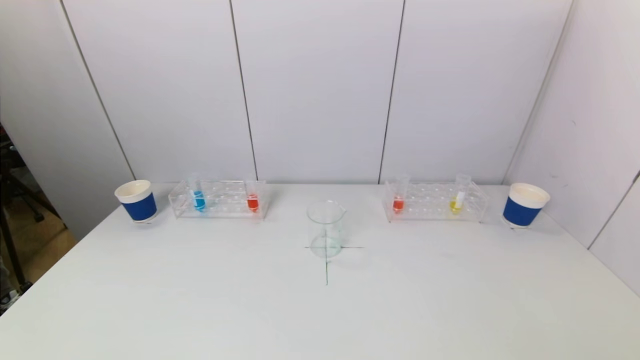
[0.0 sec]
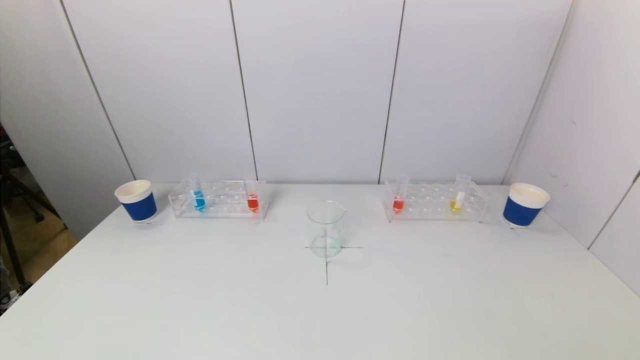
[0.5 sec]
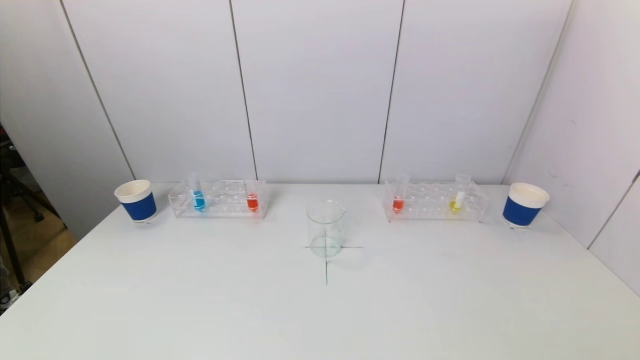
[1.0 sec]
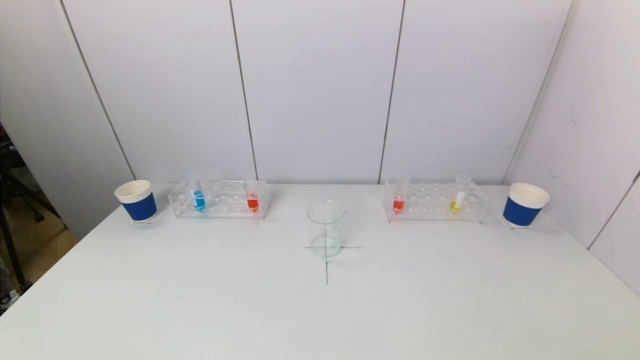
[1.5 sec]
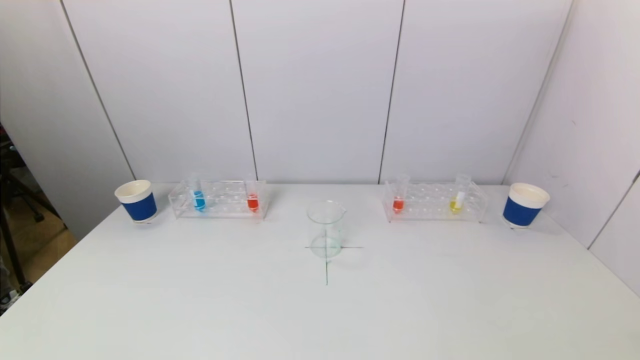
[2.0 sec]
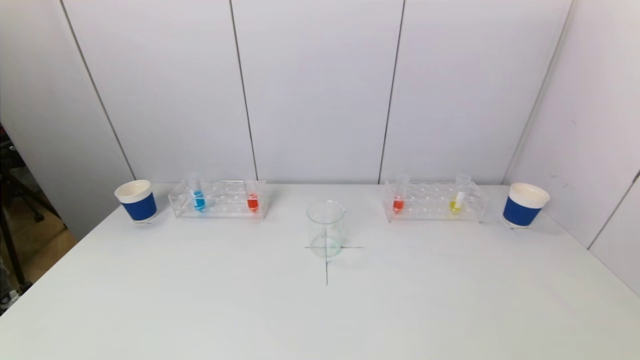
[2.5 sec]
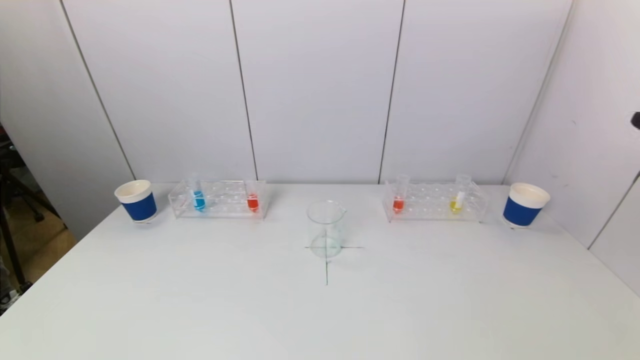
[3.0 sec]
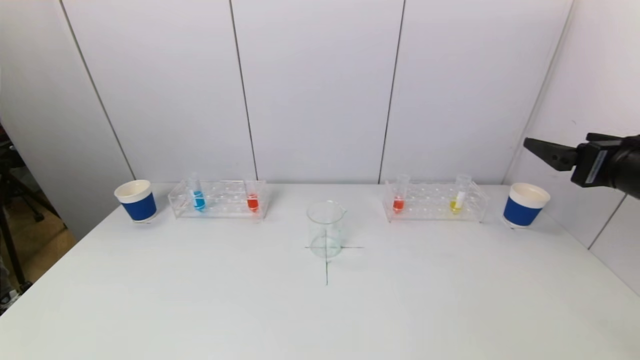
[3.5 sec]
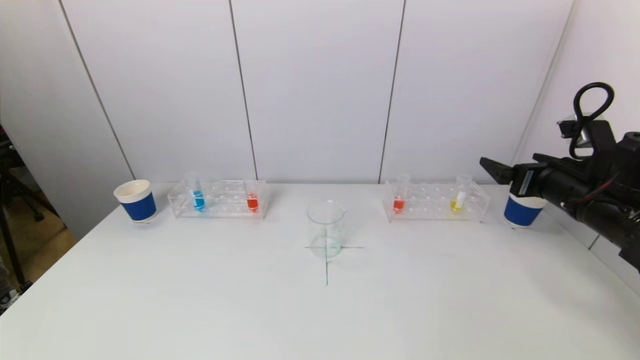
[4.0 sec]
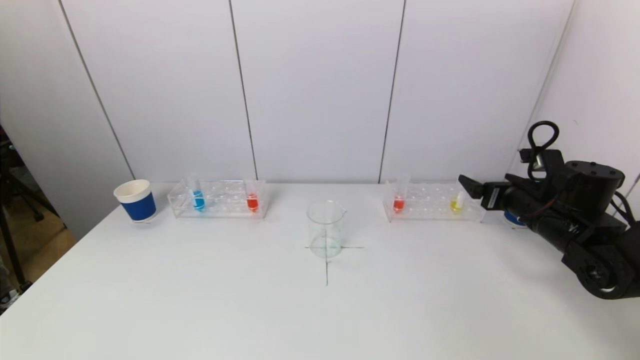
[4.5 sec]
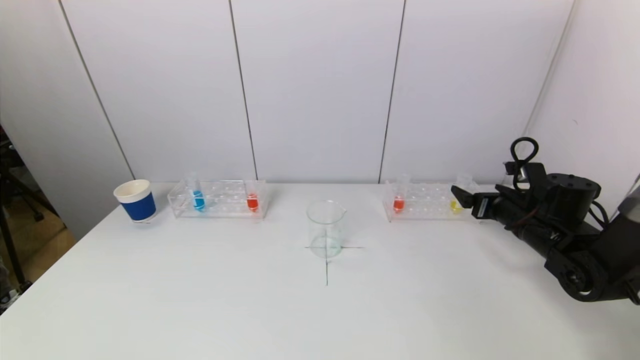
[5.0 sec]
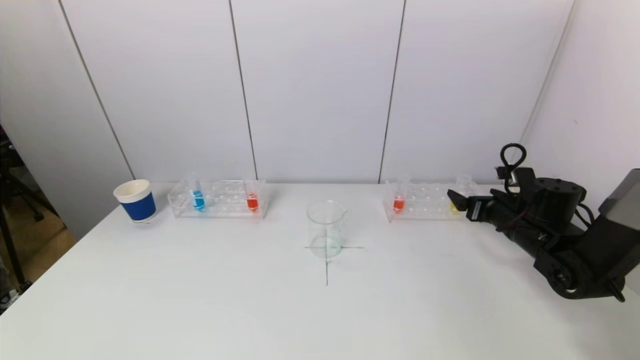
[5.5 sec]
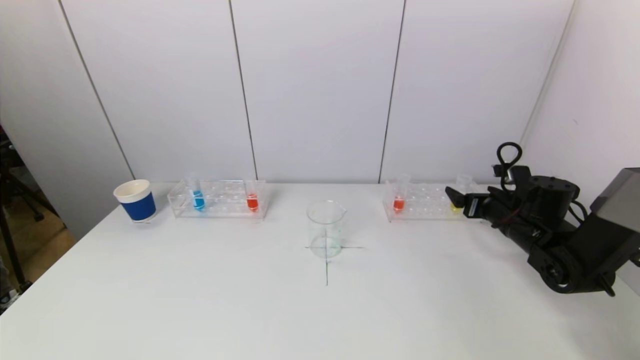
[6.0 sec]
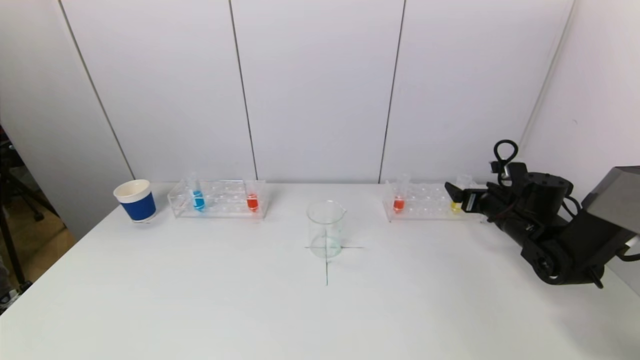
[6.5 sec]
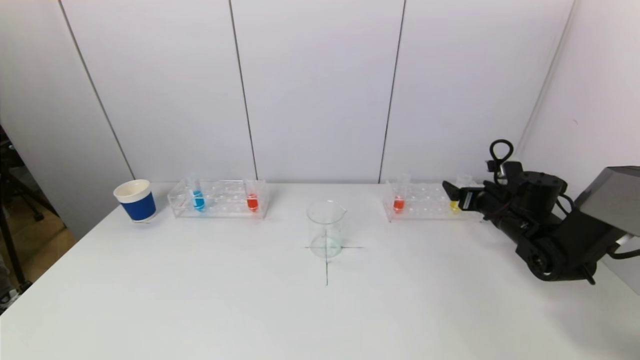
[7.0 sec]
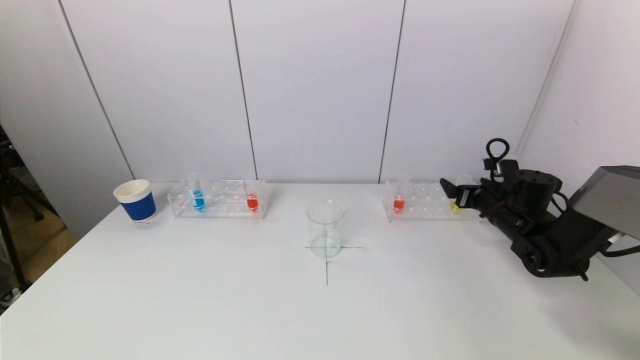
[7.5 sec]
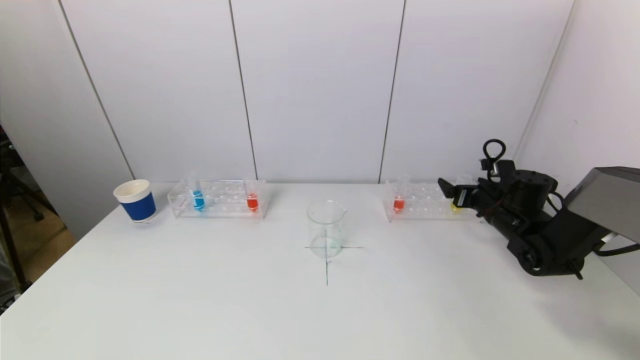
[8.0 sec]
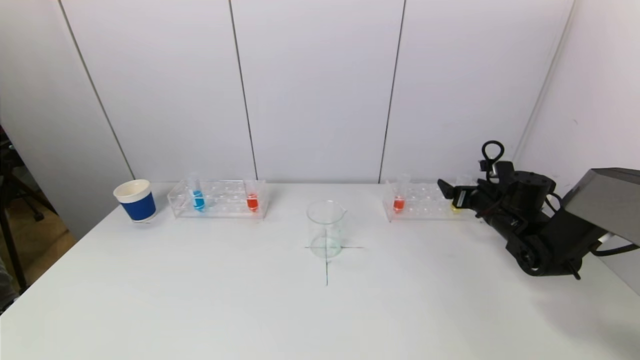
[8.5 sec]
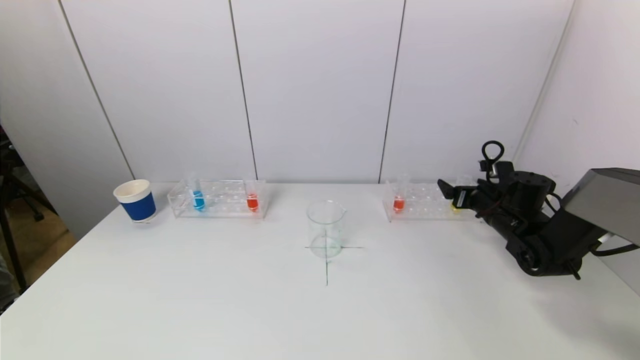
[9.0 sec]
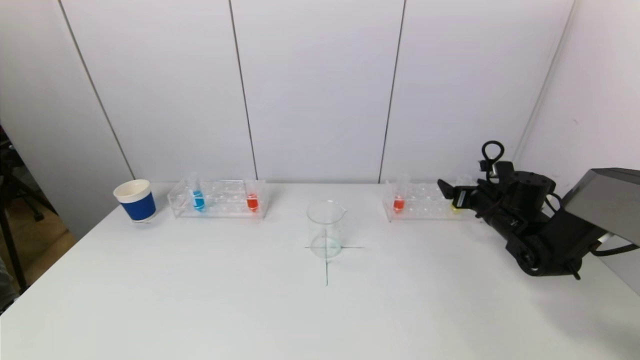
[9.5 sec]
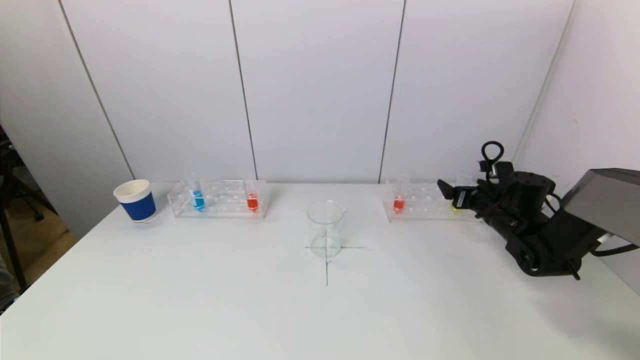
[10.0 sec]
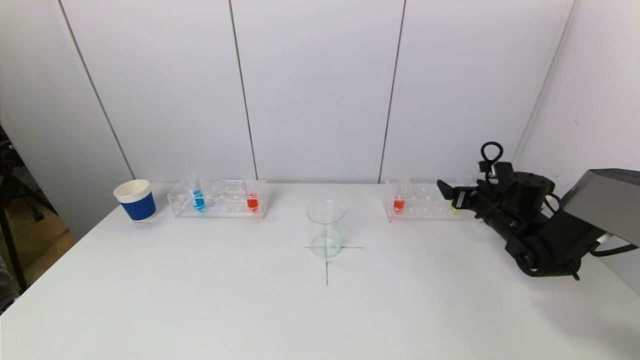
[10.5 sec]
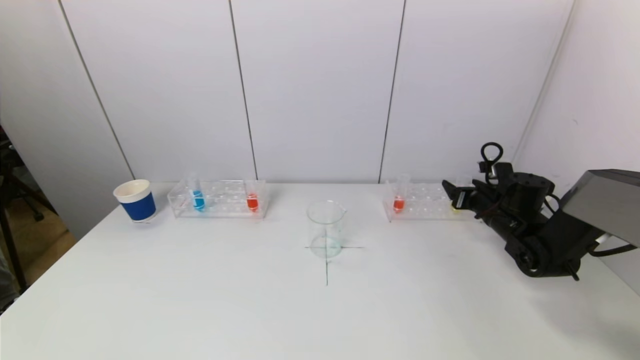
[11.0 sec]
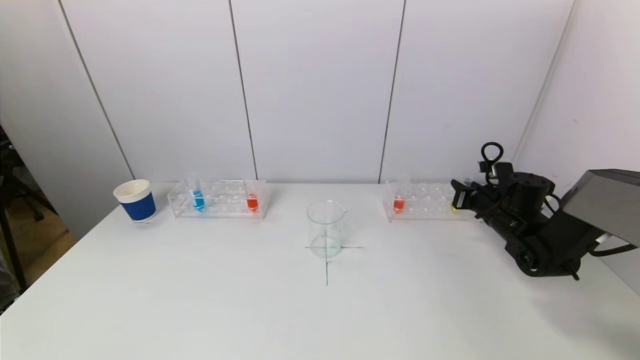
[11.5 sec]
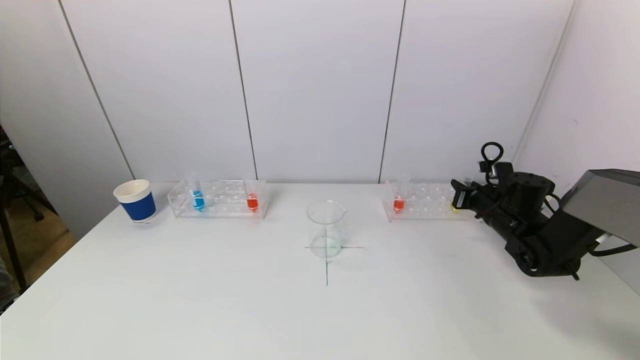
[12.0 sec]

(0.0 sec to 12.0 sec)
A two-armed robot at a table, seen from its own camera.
Task of the whole recording: pick up a test tube with pigment on left test tube rack and a test tube with pigment on right test tube rack by grippers and pour them into the beaker.
Step, 0.0 sec - 11.0 sec: Grasp the yellow reagent with the right gripper.
2.0 sec - 4.0 sec: The right gripper travels forward by some 35 cm.
4.0 sec - 6.0 sec: The right gripper is displaced downward and forward by approximately 15 cm.
6.0 sec - 8.0 sec: The grippers move only a little.
8.0 sec - 10.0 sec: Neither gripper changes place.

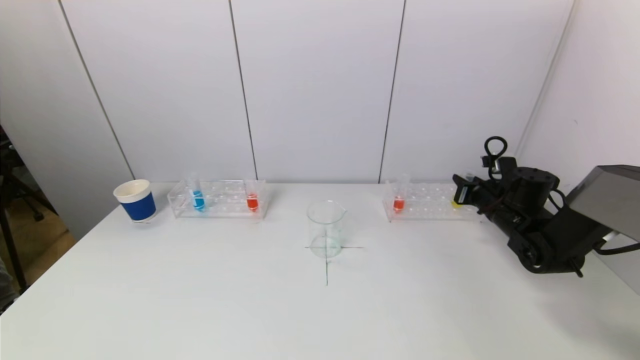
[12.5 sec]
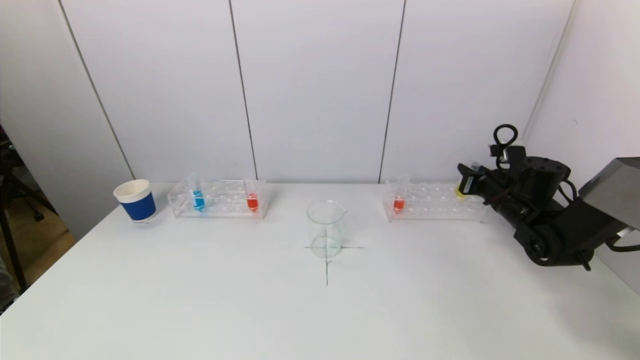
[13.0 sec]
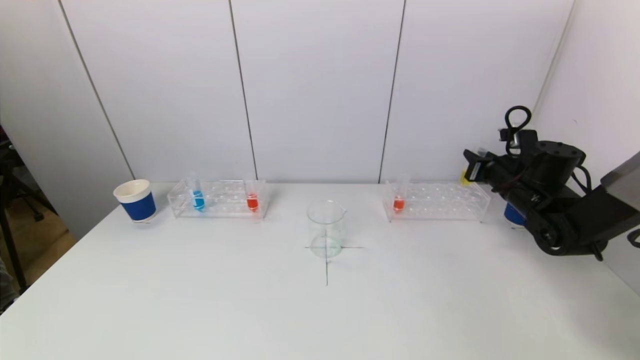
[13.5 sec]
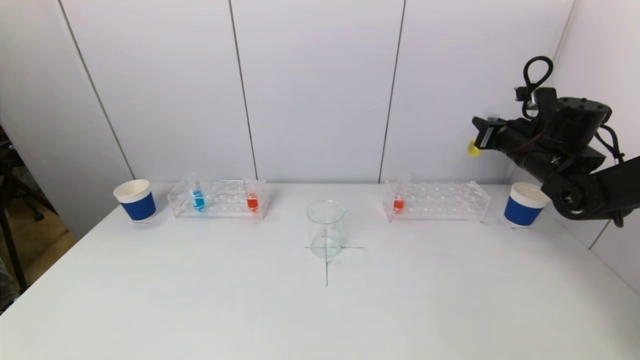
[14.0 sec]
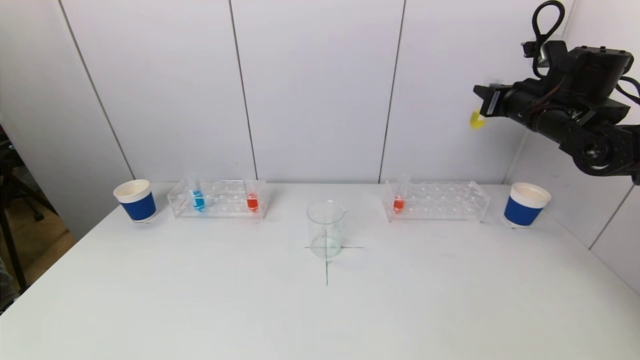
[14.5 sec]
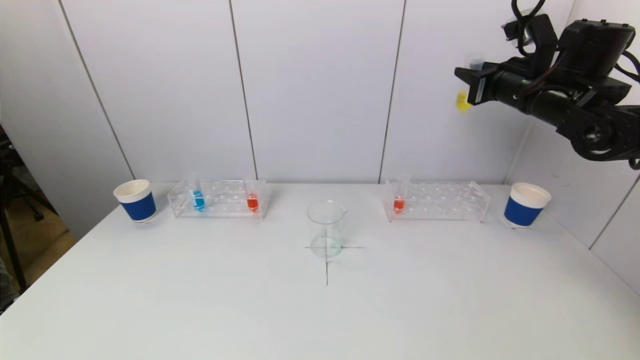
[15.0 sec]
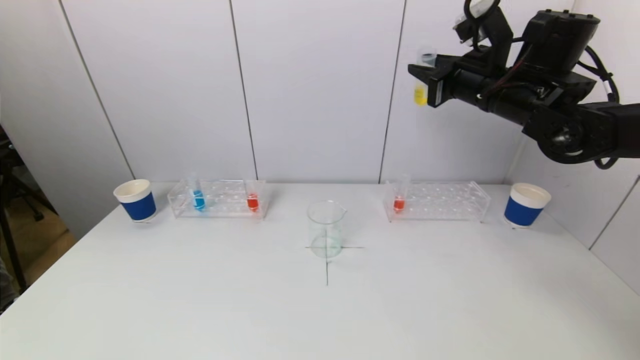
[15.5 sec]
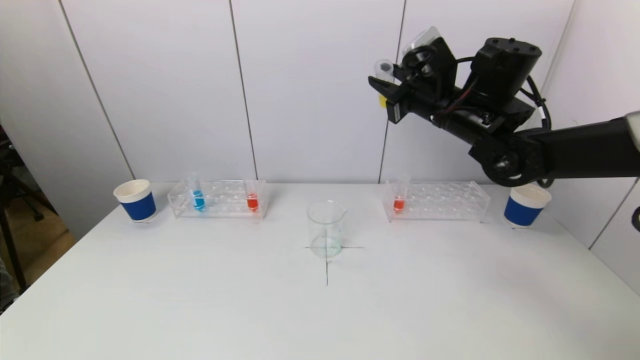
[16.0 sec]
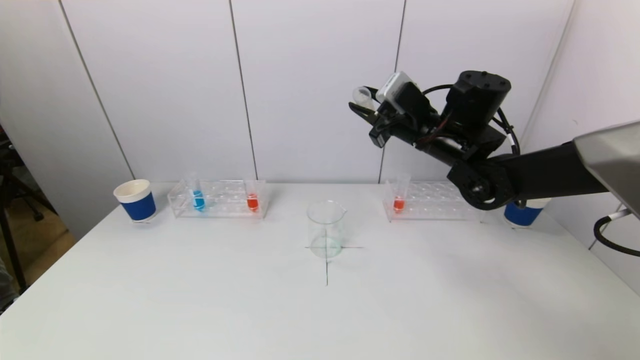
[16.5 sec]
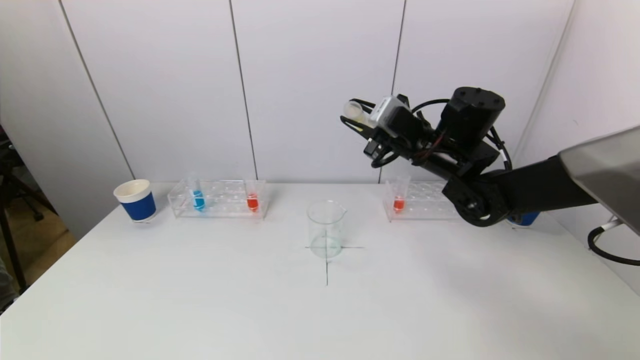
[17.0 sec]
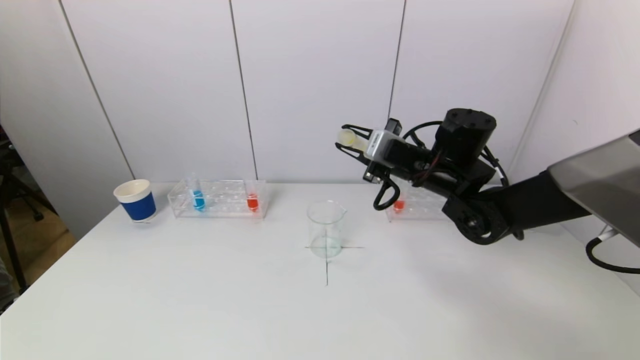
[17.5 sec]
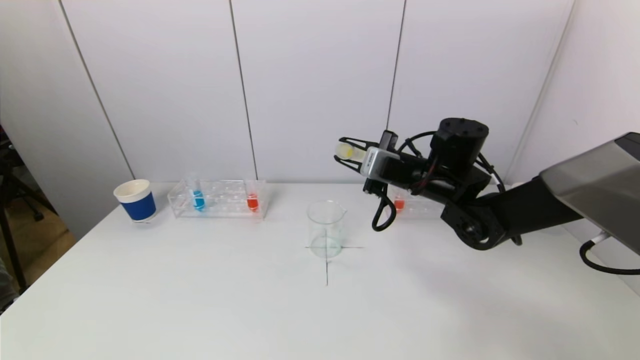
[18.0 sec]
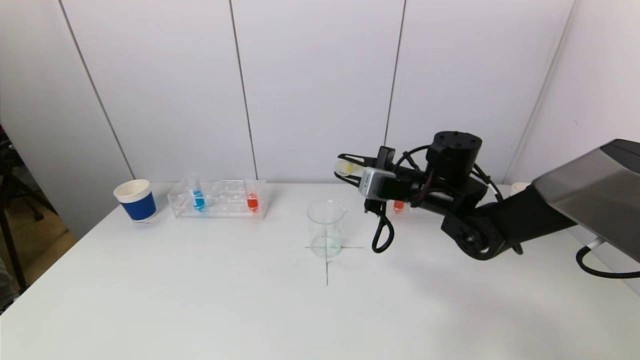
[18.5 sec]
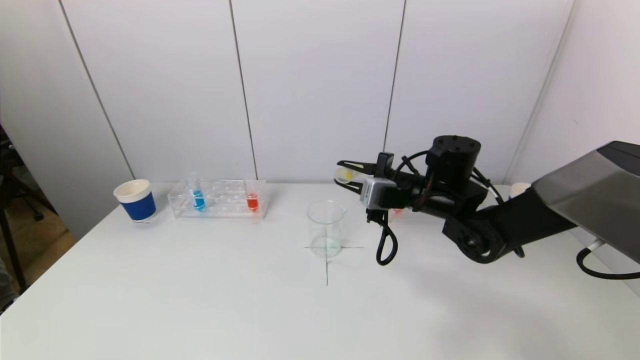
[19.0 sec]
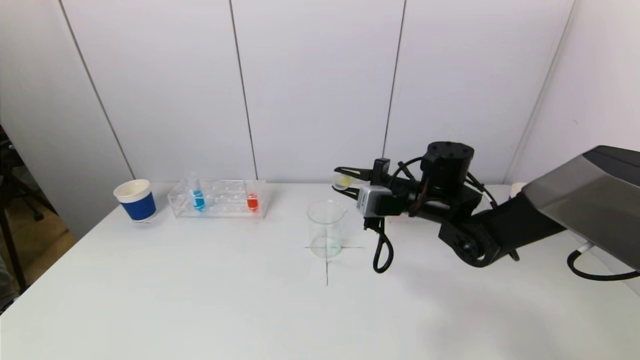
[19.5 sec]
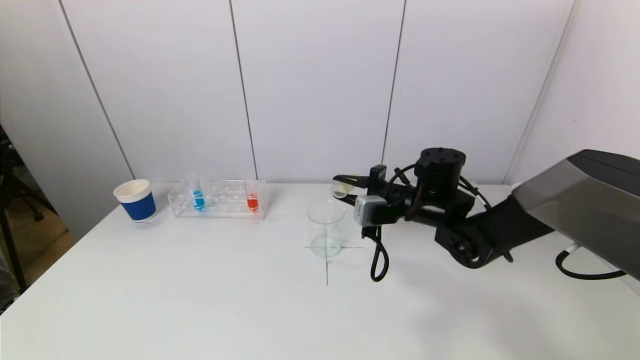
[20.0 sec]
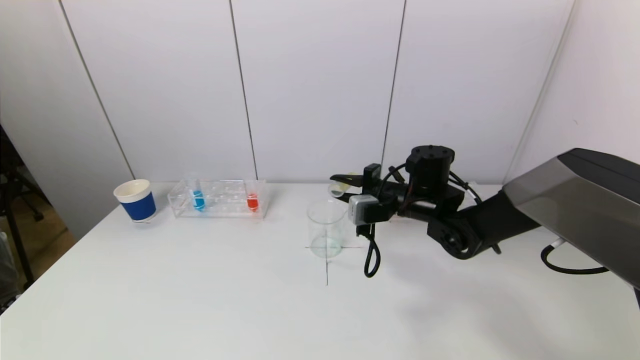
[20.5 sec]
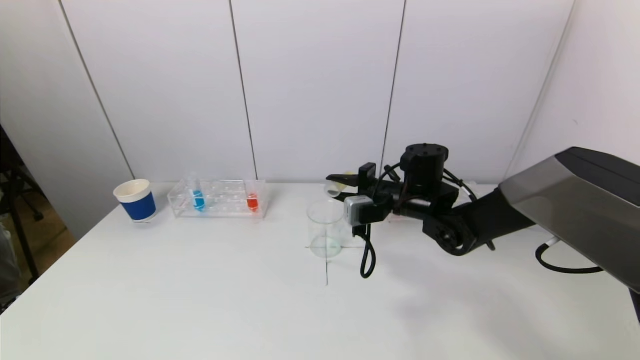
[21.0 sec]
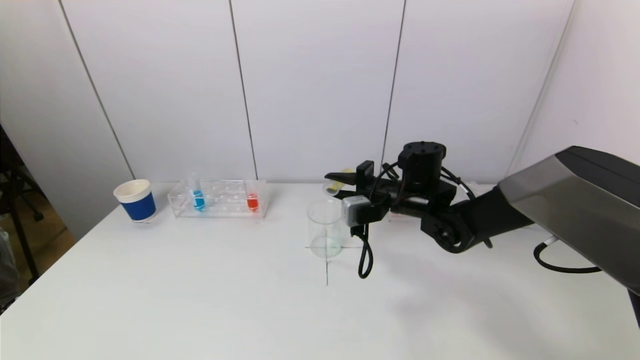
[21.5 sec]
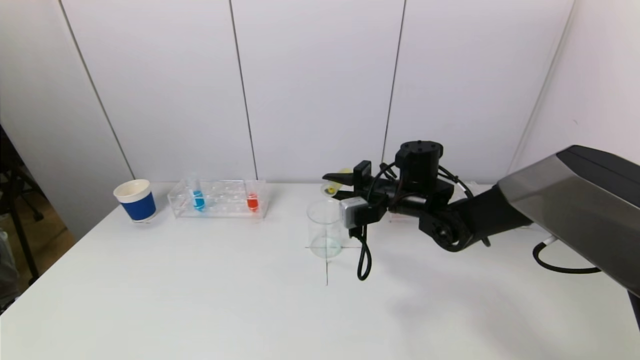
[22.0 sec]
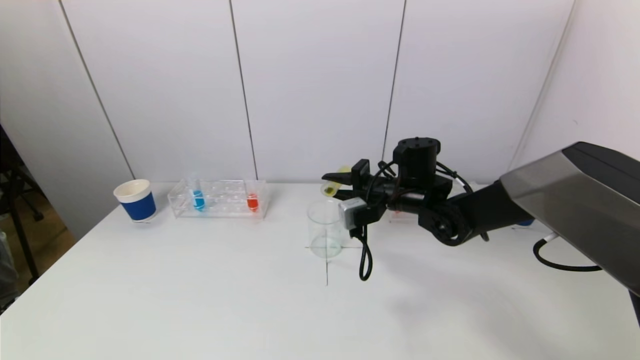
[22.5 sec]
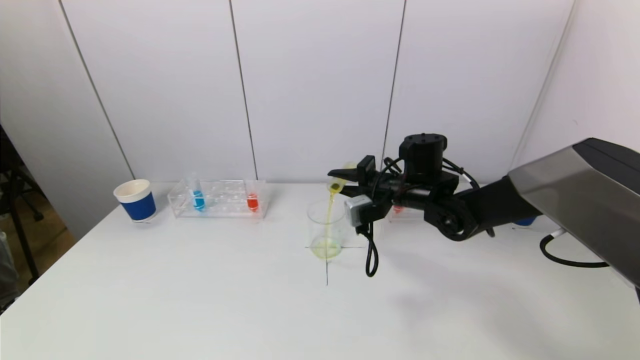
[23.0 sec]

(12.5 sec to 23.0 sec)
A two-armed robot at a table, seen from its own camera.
Task of the whole recording: pick up a test tube with pigment on left test tube rack and a test tube with pigment on right test tube rack by grippers and pour them into the beaker.
12.5 sec - 14.5 sec: The right gripper moves upward, roughly 20 cm.
14.5 sec - 16.5 sec: The right gripper moves to the left, approximately 15 cm.
16.5 sec - 19.0 sec: The right gripper shifts about 10 cm downward.
19.0 sec - 21.0 sec: There are only small adjustments of the grippers.
21.0 sec - 23.0 sec: The grippers make only small movements.
